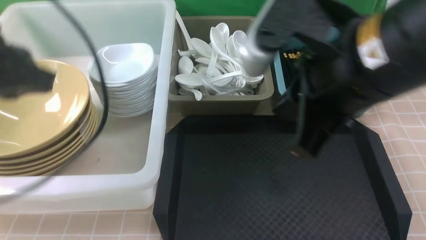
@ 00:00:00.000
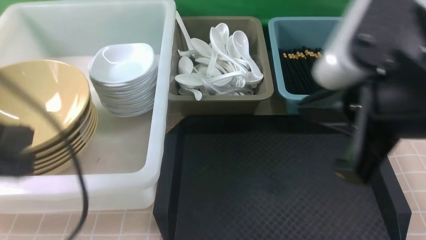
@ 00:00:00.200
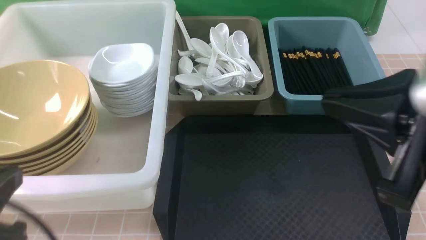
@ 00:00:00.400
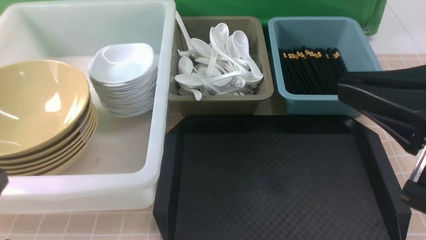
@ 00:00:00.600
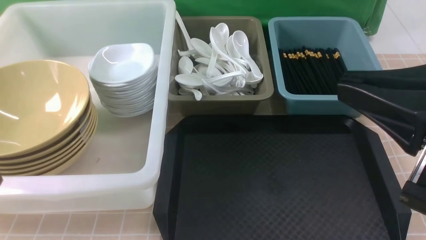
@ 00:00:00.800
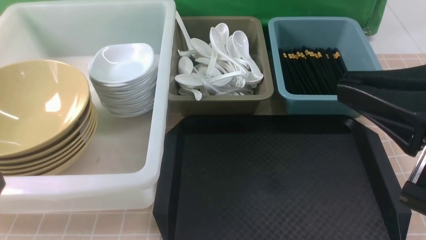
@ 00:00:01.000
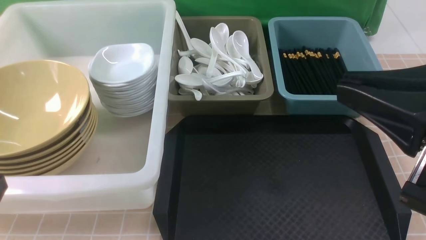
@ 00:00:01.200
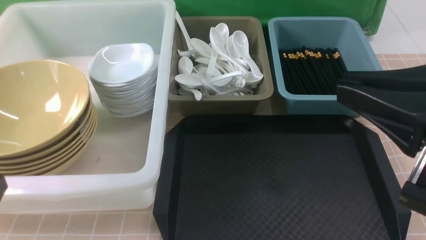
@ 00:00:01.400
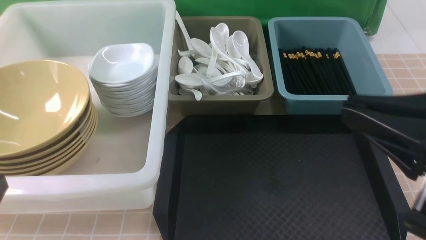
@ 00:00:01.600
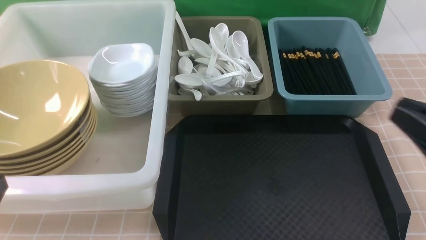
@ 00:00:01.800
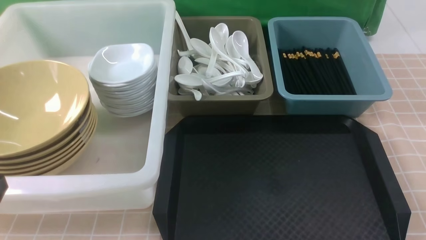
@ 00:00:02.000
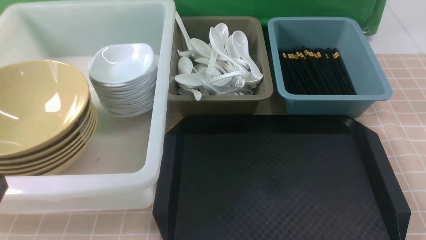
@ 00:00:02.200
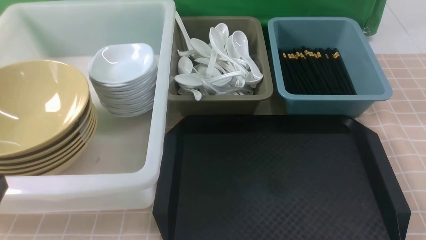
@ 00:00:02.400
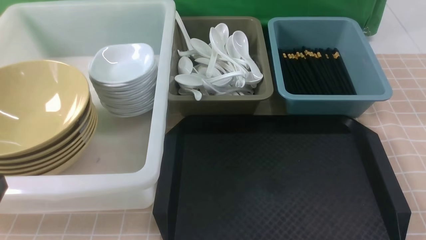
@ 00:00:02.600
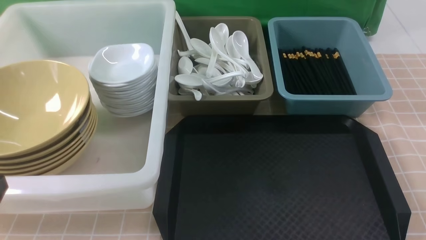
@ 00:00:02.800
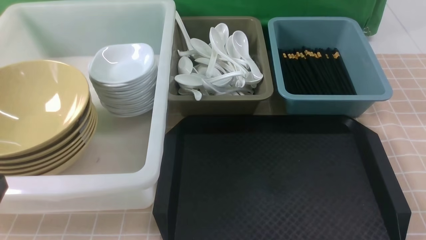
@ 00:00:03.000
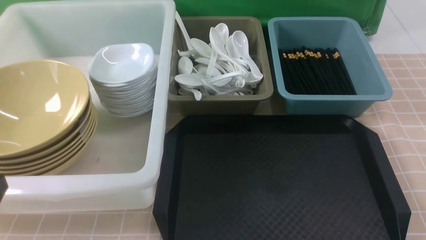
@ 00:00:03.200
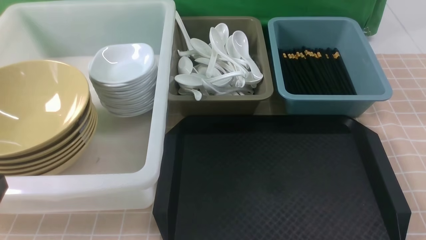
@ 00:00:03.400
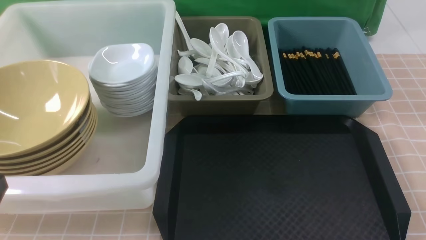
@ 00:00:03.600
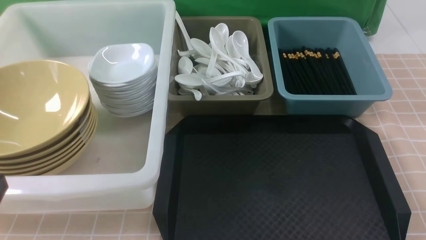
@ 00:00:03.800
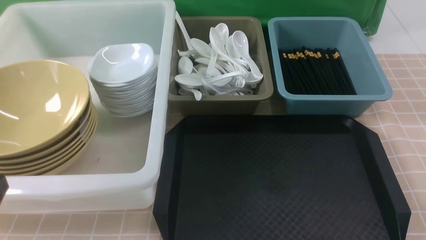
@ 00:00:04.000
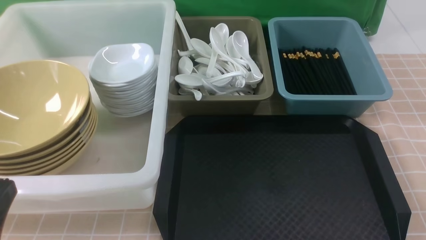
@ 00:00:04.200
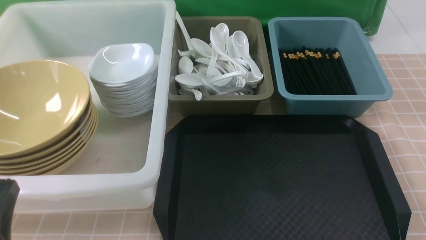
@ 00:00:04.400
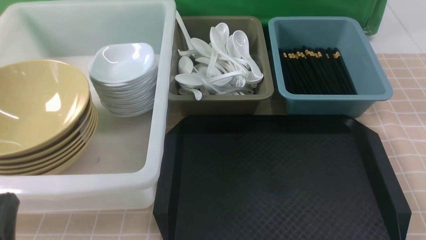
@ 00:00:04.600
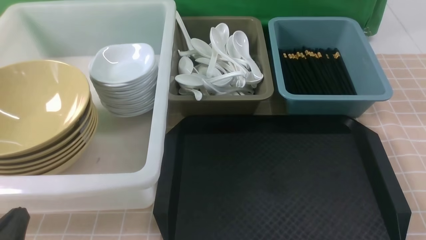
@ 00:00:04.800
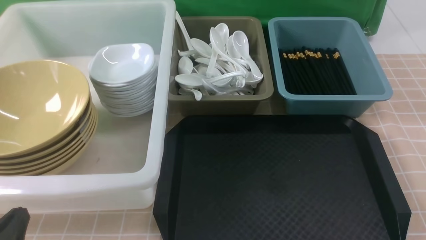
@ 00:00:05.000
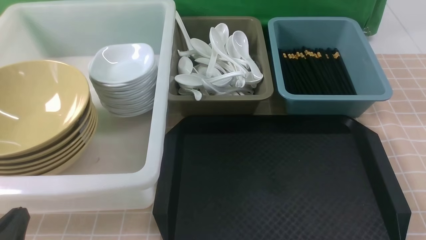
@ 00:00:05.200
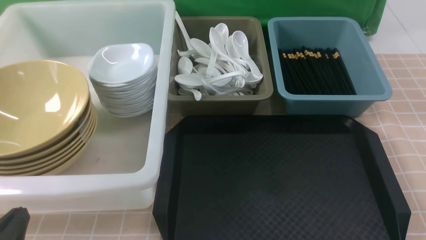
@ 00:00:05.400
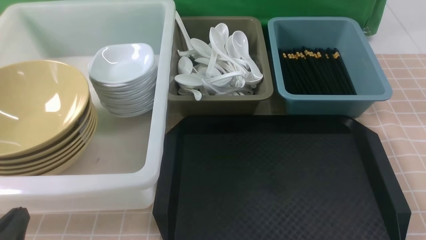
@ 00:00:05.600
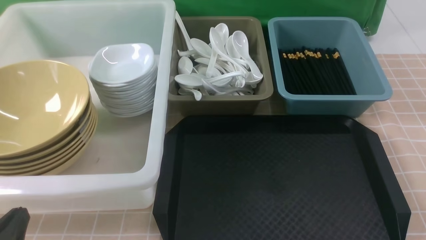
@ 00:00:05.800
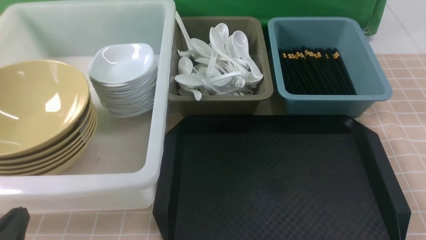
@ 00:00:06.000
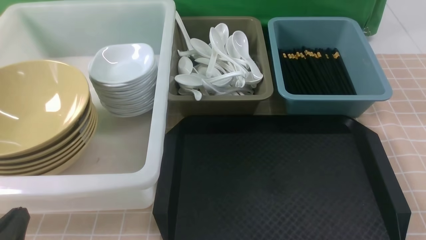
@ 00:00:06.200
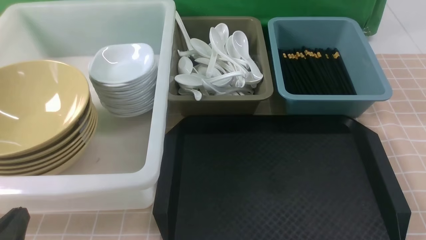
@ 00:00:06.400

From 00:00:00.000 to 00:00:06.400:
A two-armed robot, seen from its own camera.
Task of the whole recording: on brown table put chopsticks spoon bowls plates into blue grey white boxes.
From 00:00:00.000 to 00:00:01.600: The right gripper heads to the right and backward, covering roughly 10 cm. The left gripper shifts roughly 20 cm backward and downward.
From 00:00:01.600 to 00:00:03.200: The right gripper heads downward and to the right, covering approximately 20 cm.
From 00:00:03.200 to 00:00:04.800: The left gripper moves downward, about 10 cm.
From 00:00:04.800 to 00:00:06.400: Both grippers stay about where they are.
